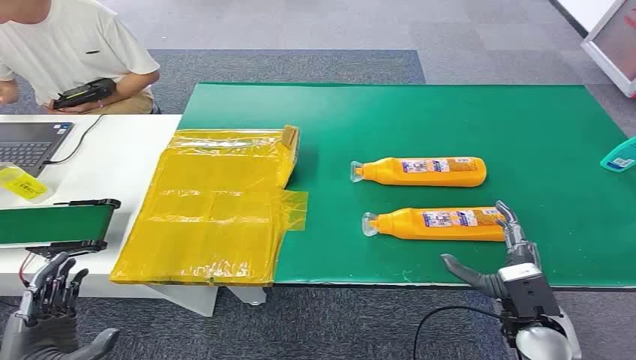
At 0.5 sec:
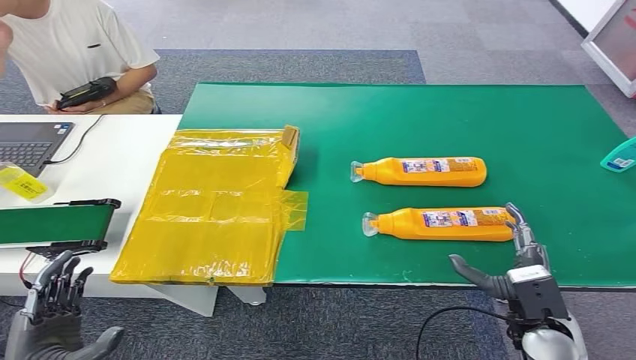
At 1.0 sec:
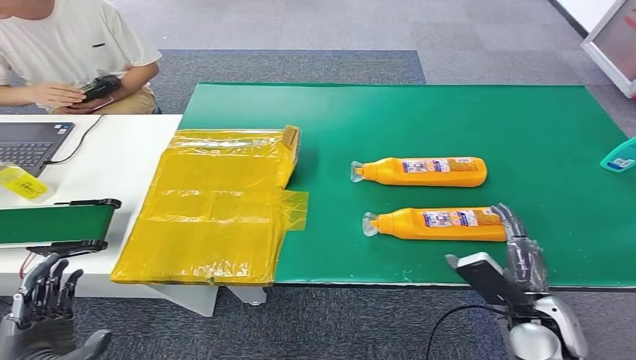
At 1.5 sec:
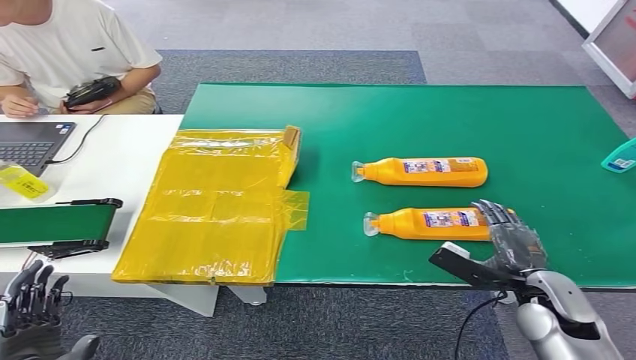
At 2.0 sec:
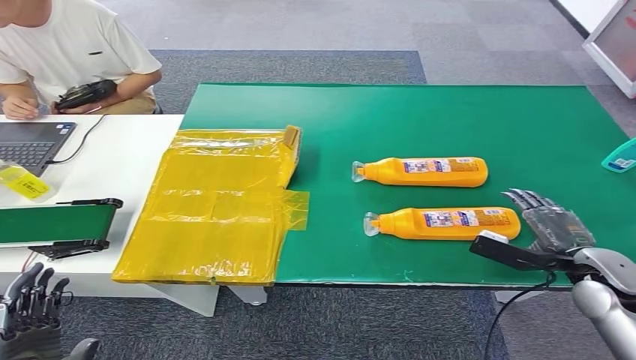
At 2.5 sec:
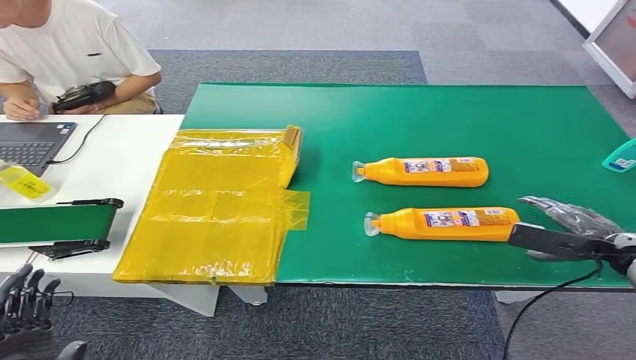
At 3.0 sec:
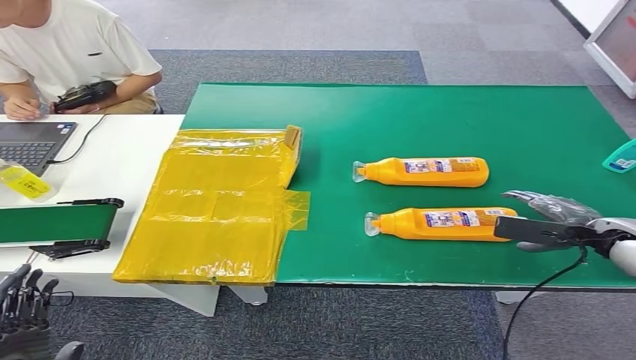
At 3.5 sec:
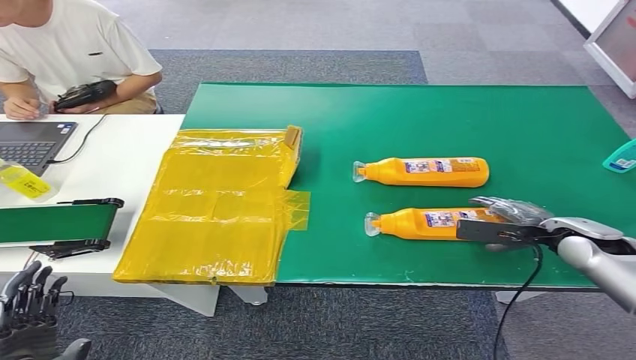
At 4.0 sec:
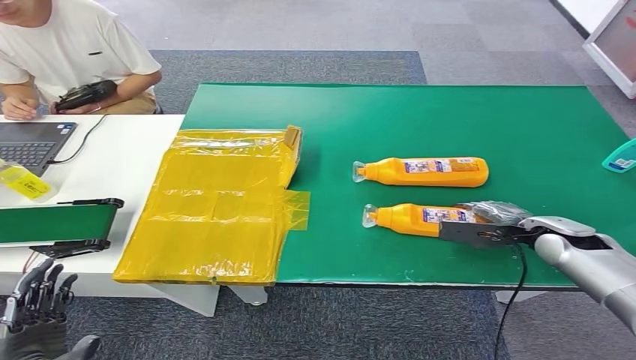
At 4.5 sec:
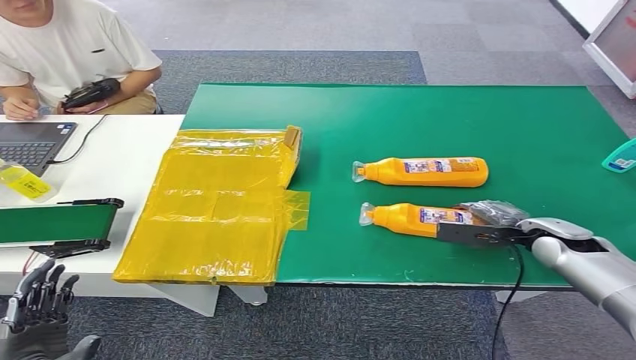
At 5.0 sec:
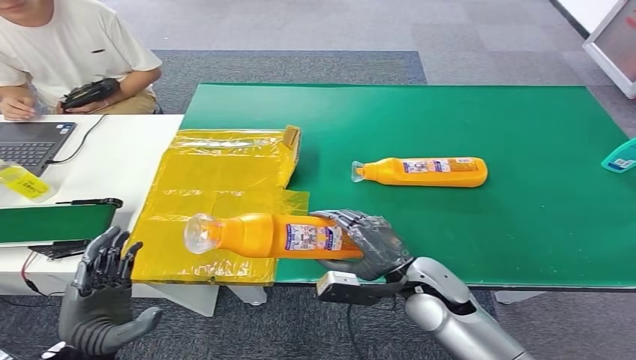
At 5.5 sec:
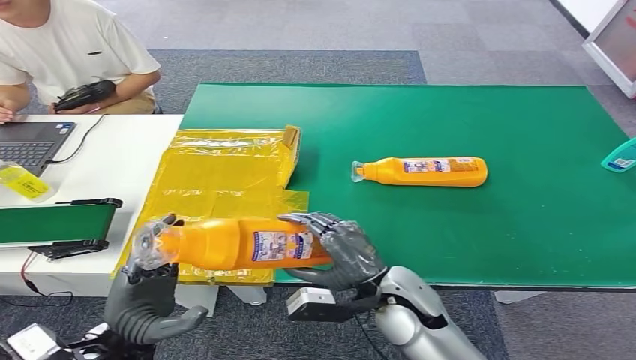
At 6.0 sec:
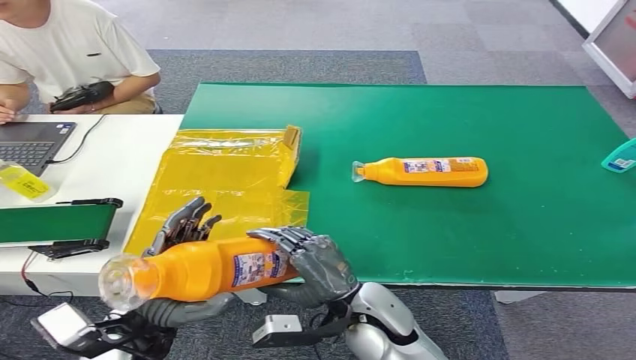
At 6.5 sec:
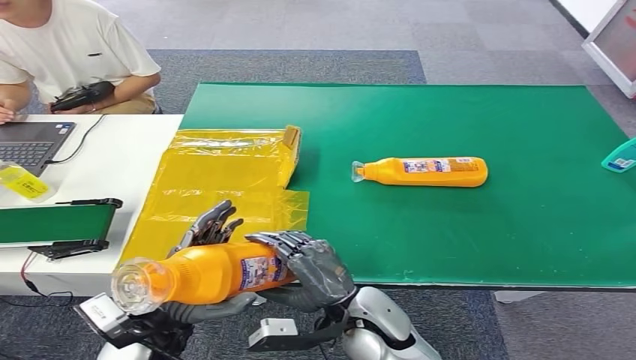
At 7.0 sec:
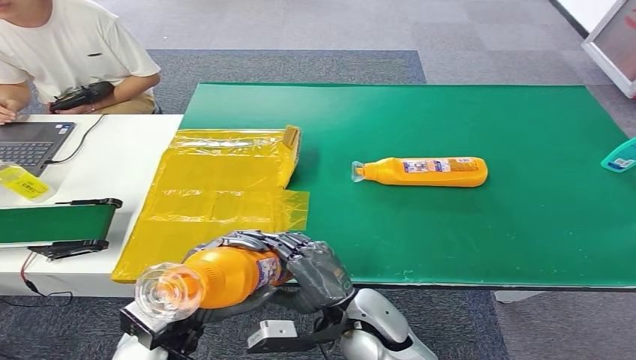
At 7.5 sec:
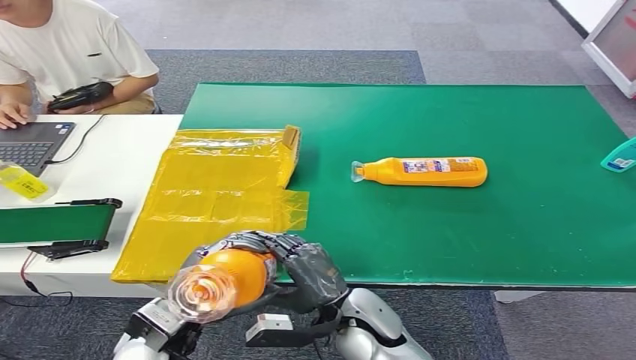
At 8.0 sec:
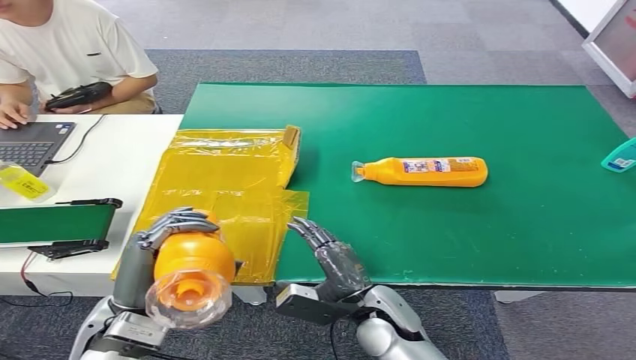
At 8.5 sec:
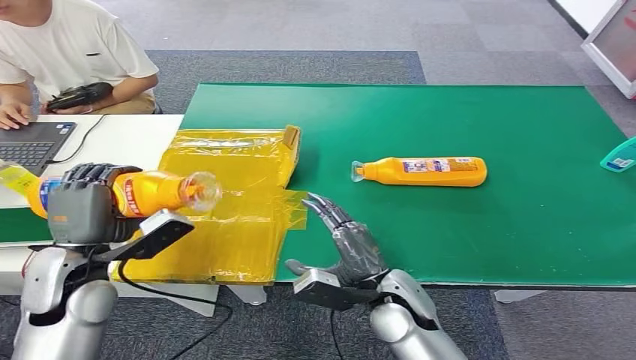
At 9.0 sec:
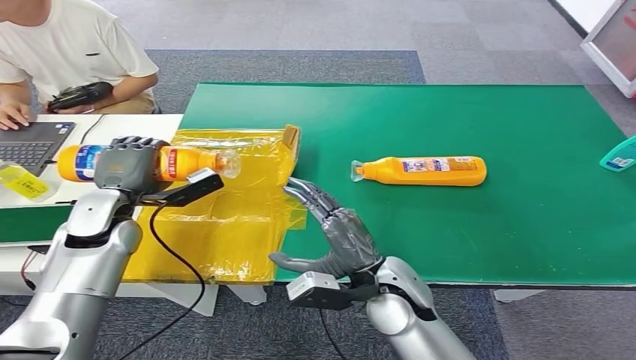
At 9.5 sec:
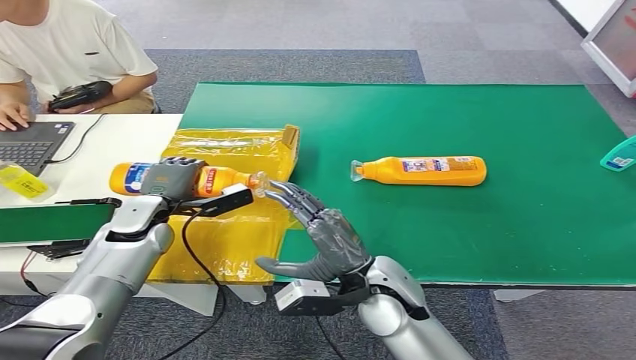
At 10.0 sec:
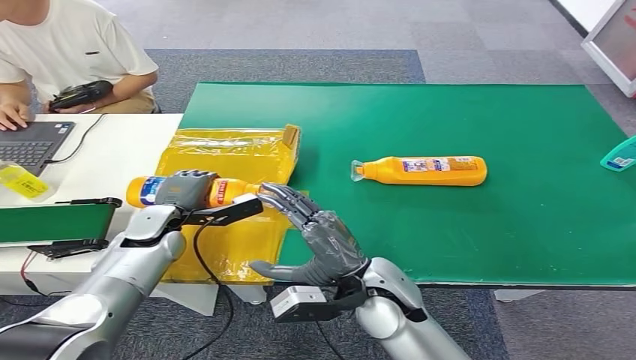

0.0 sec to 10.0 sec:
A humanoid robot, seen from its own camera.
Step, 0.0 sec to 6.5 sec: Pick up the bottle from the table.
2.0 sec to 4.0 sec: The right hand goes about 10 cm forward.
4.0 sec to 6.0 sec: The right hand goes approximately 35 cm to the left and backward; the left hand is displaced to the right, forward and upward by roughly 20 cm.
6.0 sec to 8.0 sec: The right hand shifts about 5 cm downward.
8.0 sec to 10.0 sec: The right hand shifts some 10 cm upward. Meanwhile the left hand moves forward, some 20 cm.

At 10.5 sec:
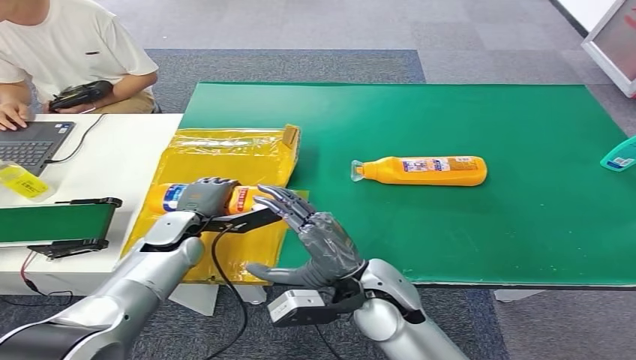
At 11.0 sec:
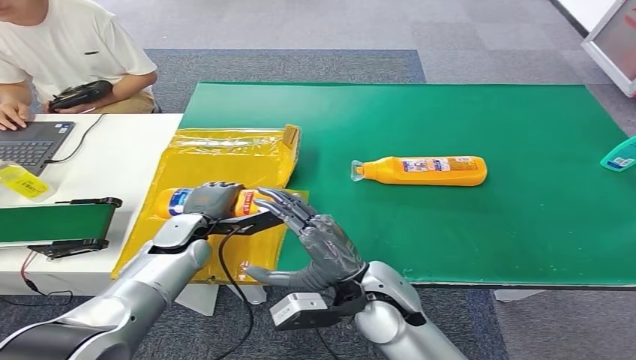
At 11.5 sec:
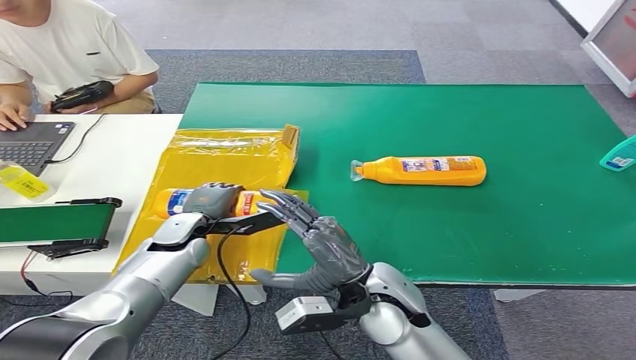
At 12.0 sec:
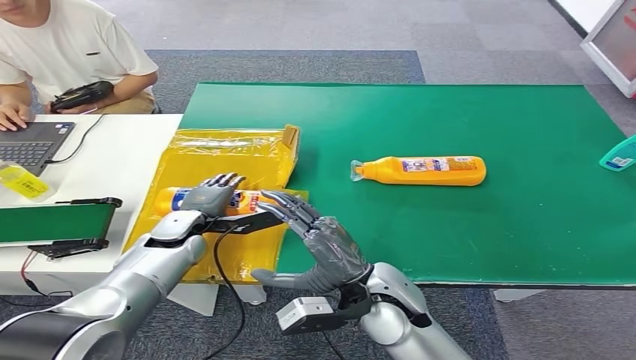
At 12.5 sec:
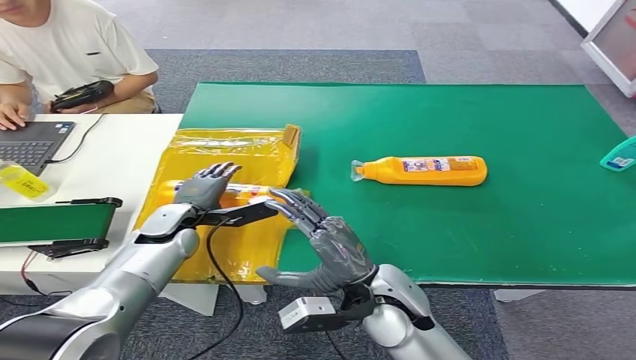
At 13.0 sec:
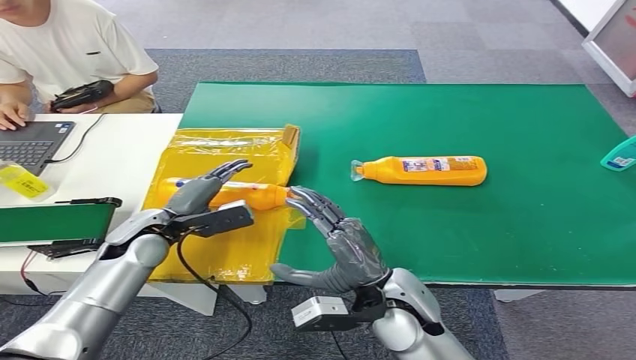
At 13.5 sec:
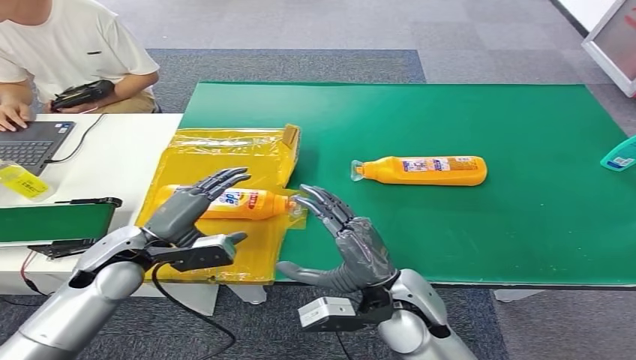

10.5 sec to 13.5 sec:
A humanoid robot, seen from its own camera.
Step, 10.5 sec to 13.5 sec: Turn the bottle to the front side.
10.5 sec to 12.0 sec: The hands stay close to where they were, moving slightly.
12.0 sec to 13.5 sec: The left hand heads backward and upward, covering some 10 cm.

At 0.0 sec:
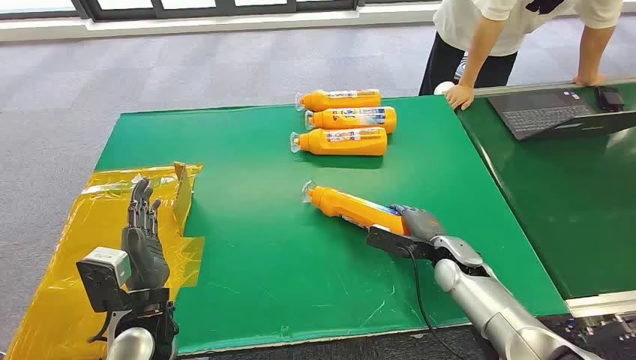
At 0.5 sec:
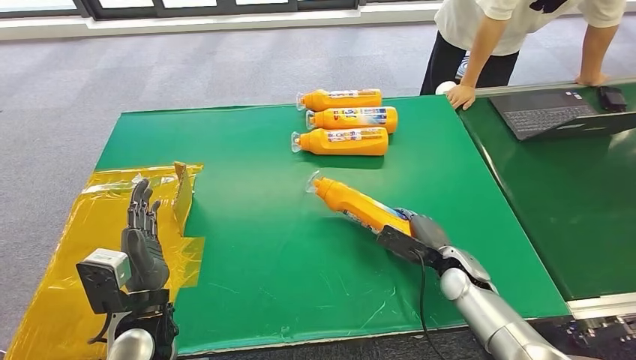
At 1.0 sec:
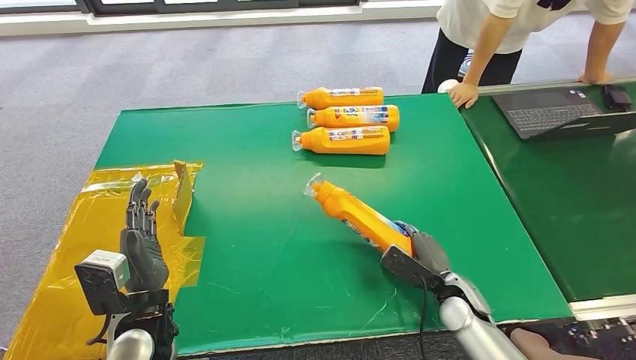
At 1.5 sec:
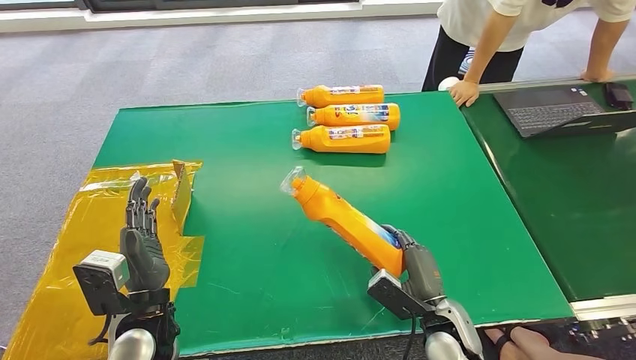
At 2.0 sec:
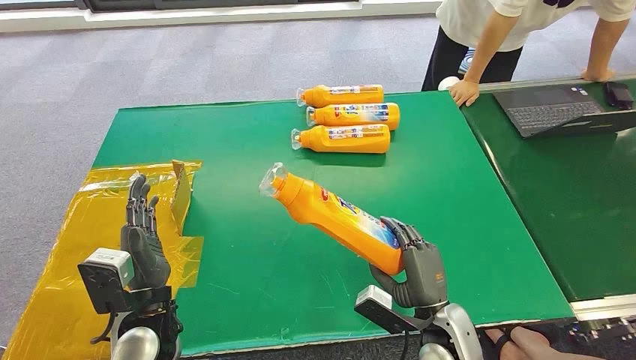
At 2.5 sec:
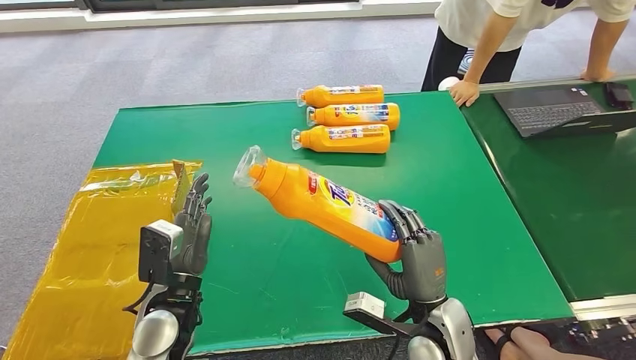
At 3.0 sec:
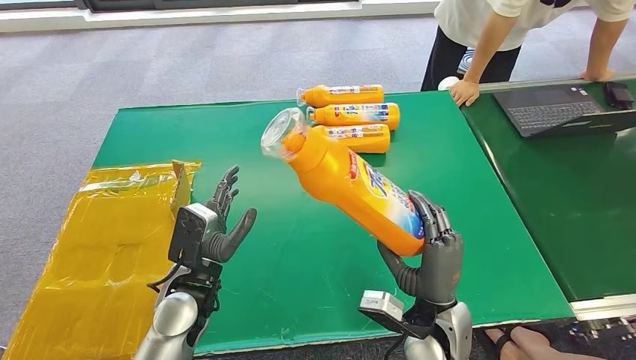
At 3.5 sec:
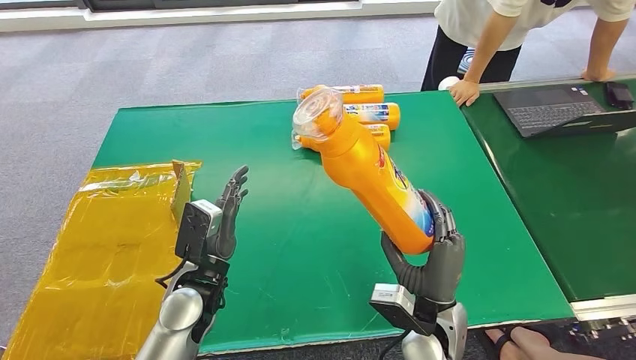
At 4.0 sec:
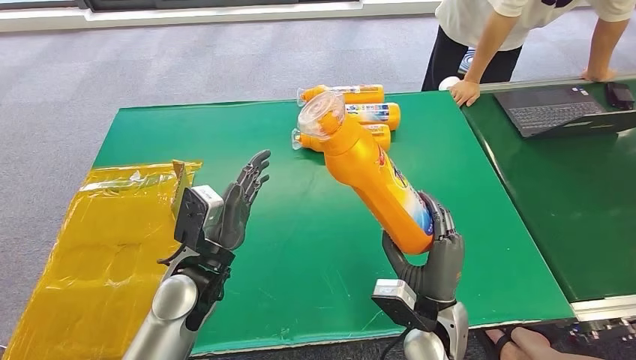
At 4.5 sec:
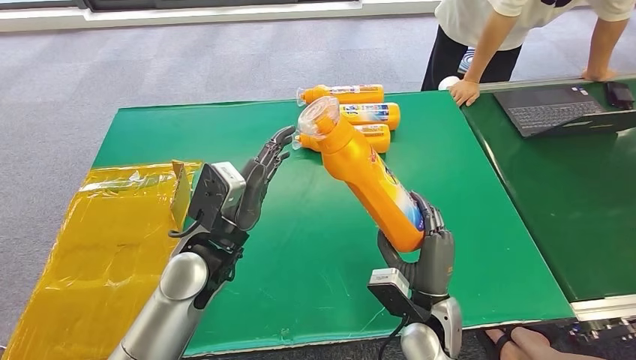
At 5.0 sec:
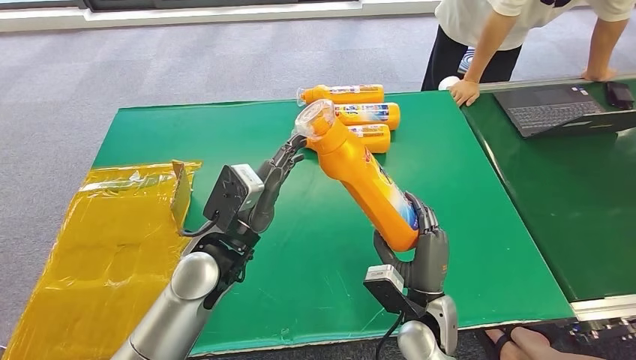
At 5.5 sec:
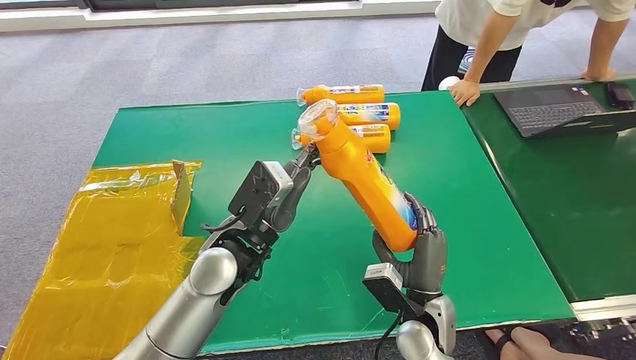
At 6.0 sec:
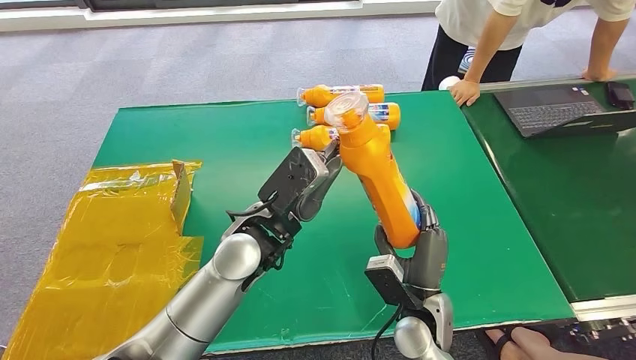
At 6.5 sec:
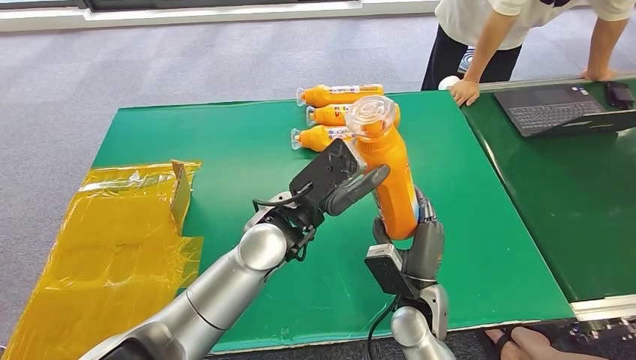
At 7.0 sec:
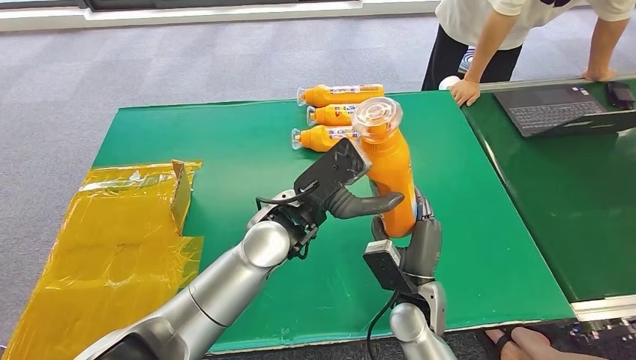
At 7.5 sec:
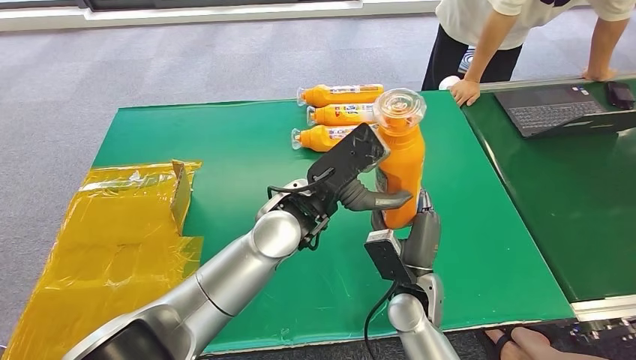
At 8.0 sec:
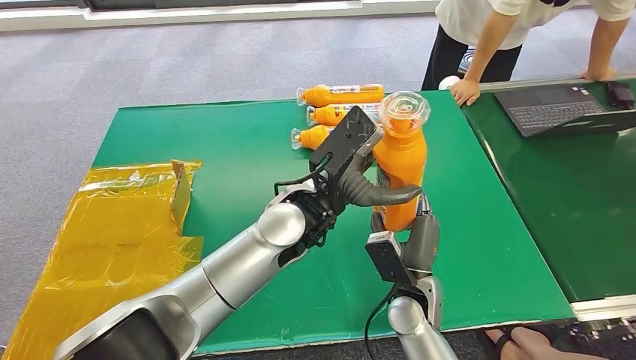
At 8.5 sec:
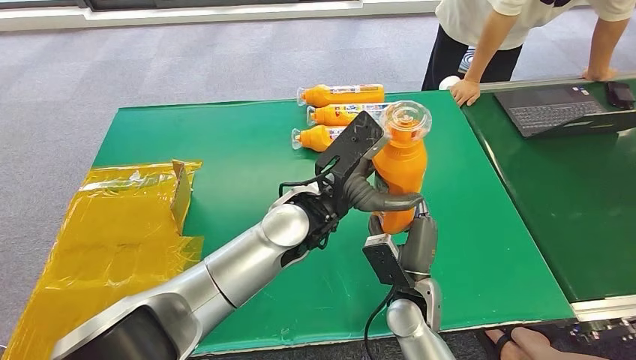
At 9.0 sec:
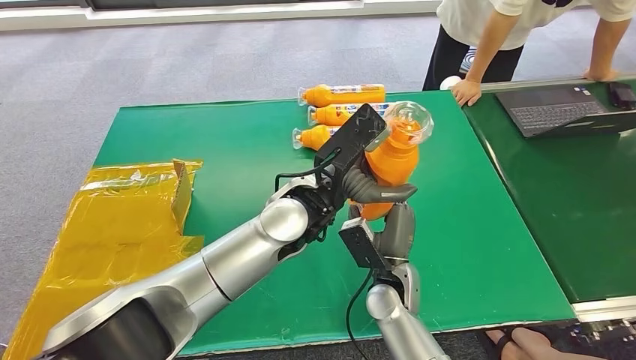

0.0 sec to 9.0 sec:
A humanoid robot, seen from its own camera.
Step, 0.0 sec to 1.0 sec: Pick up the bottle from the table.
2.0 sec to 4.5 sec: The left hand goes approximately 15 cm to the right, forward and upward.
4.5 sec to 7.0 sec: The left hand travels to the right by approximately 10 cm.
7.0 sec to 9.0 sec: The right hand moves roughly 5 cm.
